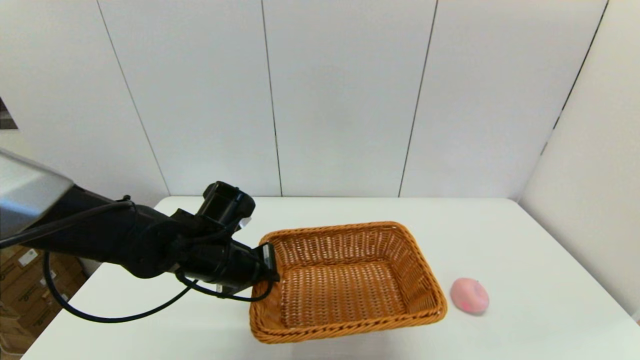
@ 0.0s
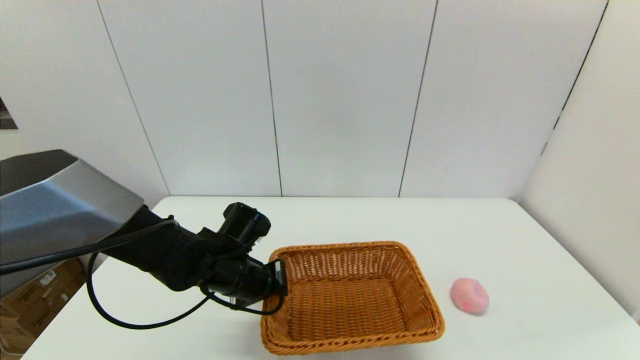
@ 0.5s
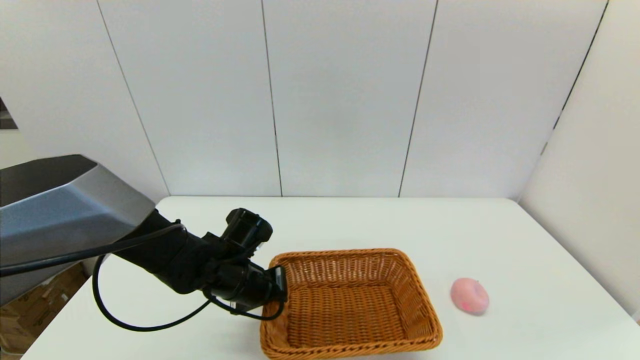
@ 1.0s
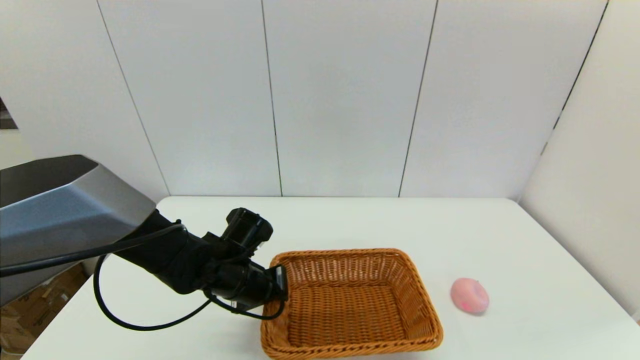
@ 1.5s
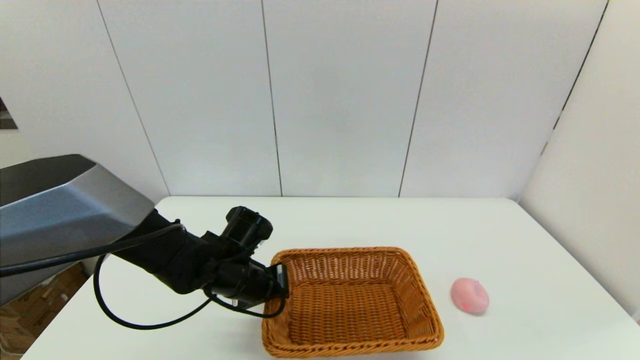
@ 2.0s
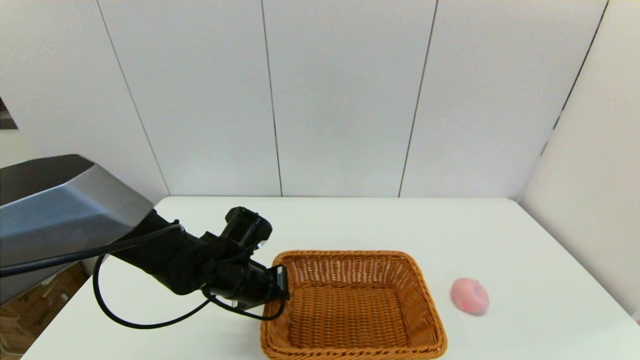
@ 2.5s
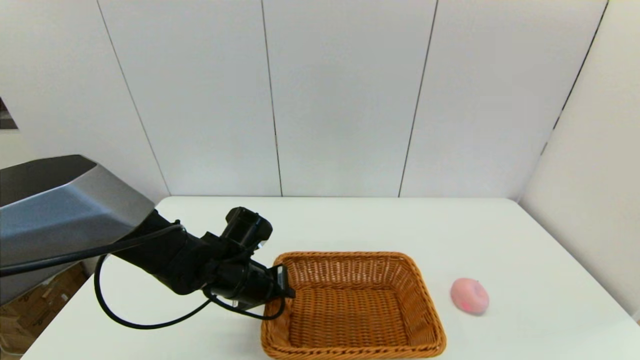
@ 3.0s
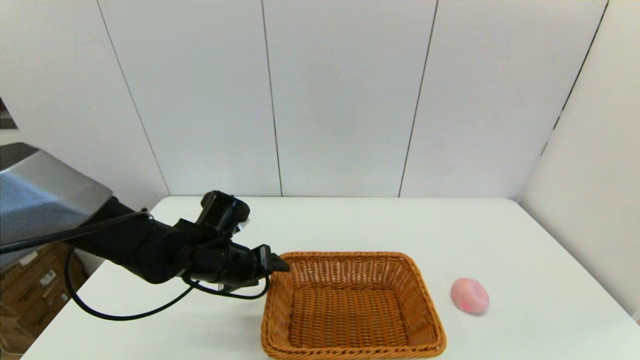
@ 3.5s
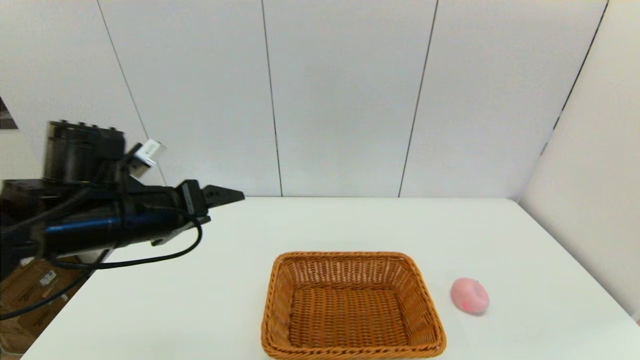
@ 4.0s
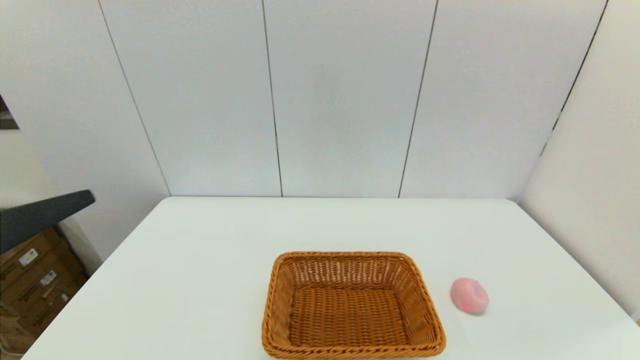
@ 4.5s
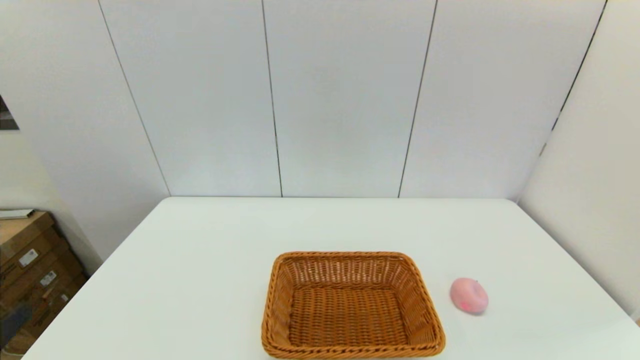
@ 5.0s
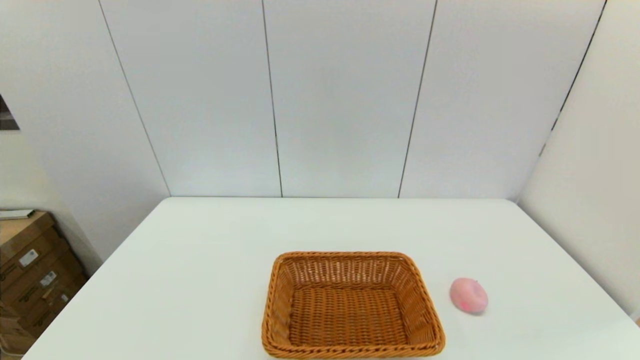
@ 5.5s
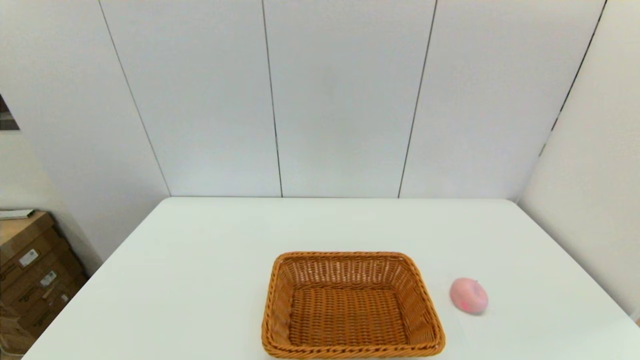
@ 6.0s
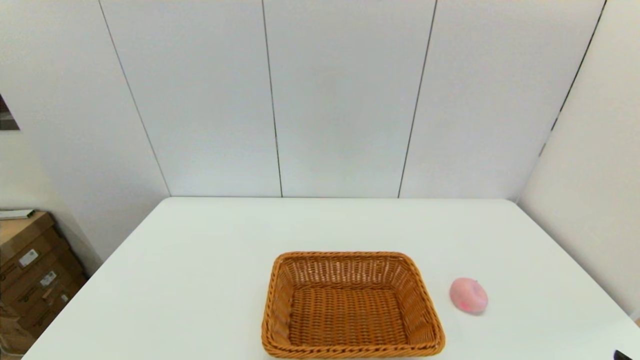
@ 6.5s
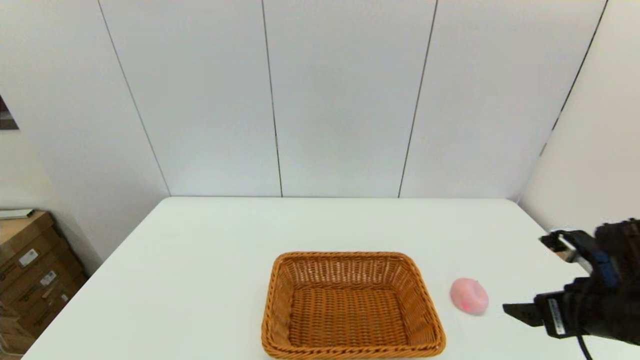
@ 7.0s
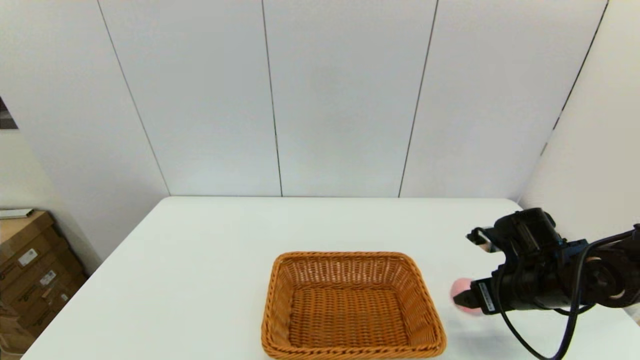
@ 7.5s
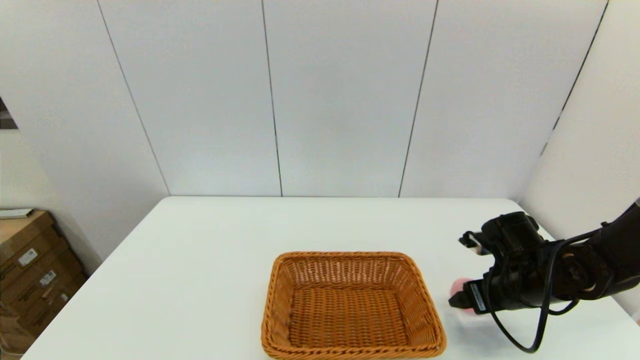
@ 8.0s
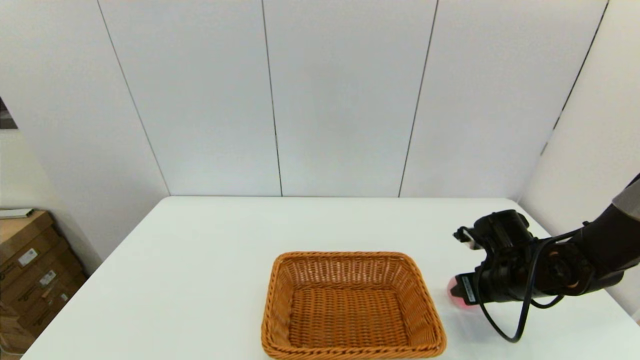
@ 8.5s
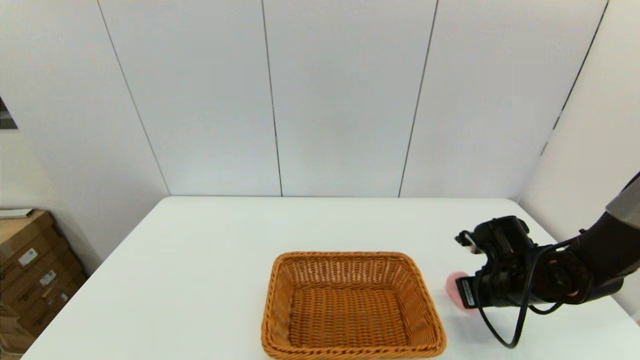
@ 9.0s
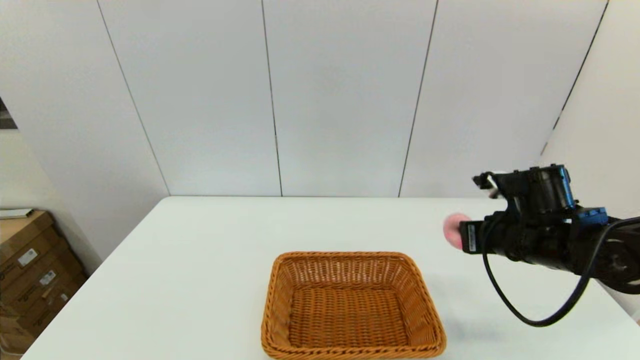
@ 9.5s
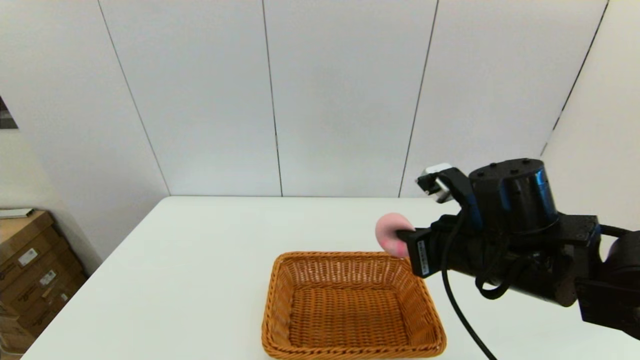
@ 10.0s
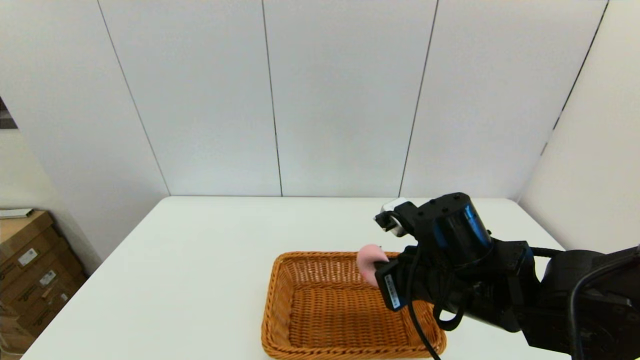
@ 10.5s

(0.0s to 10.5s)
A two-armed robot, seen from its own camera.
Step, 0.0s - 3.0s: Place the light basket on the middle of the table with the left gripper.
Step, 3.5s - 8.5s: Grasp the peach with the right gripper.
0.0s - 2.0s: The left gripper moves downward, about 5 cm.
2.0s - 4.0s: The left gripper goes approximately 20 cm upward and to the left, and opens.
4.0s - 6.5s: The left gripper moves backward and downward, roughly 30 cm. The right gripper is displaced upward by about 5 cm.
6.5s - 8.5s: The right gripper heads forward, covering some 25 cm, and closes.
8.5s - 10.5s: The right gripper goes approximately 20 cm to the left, upward and backward, and closes.

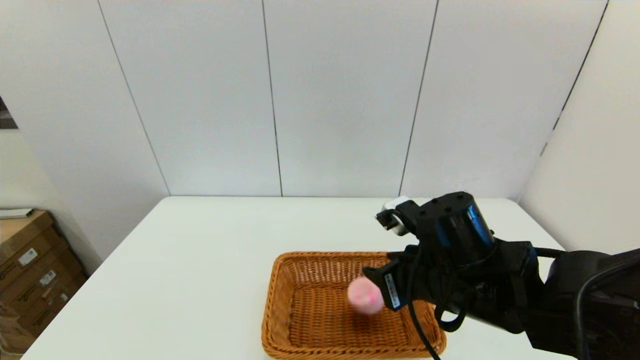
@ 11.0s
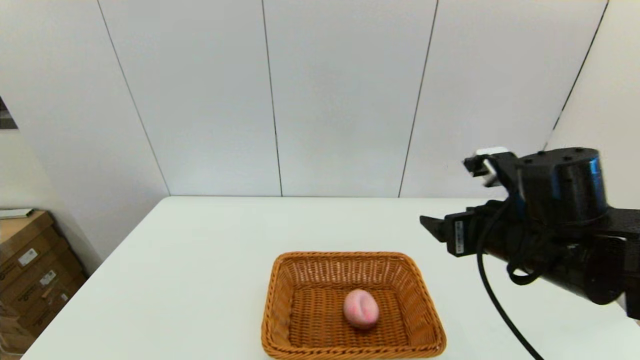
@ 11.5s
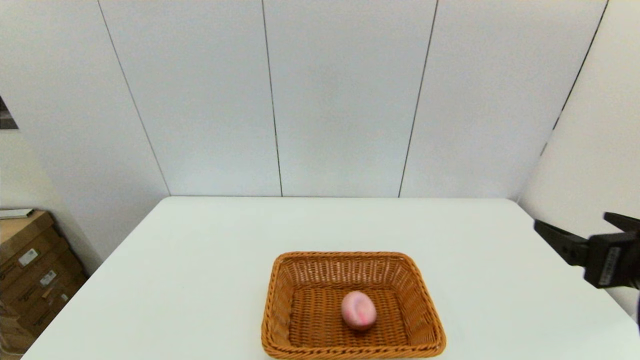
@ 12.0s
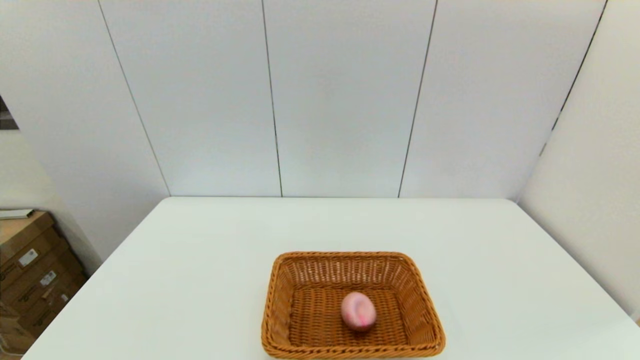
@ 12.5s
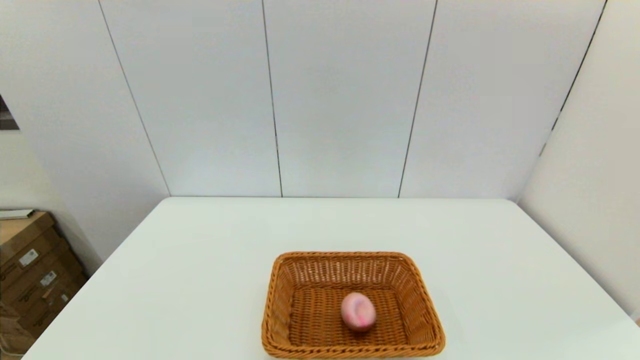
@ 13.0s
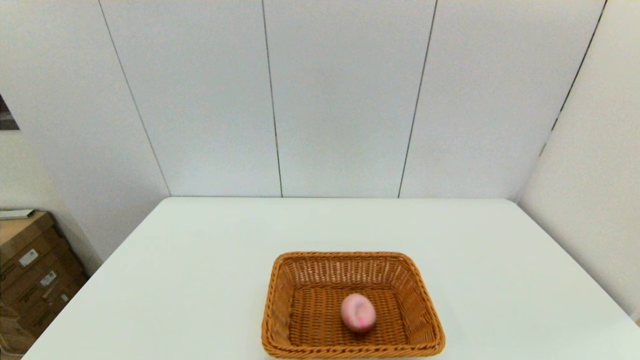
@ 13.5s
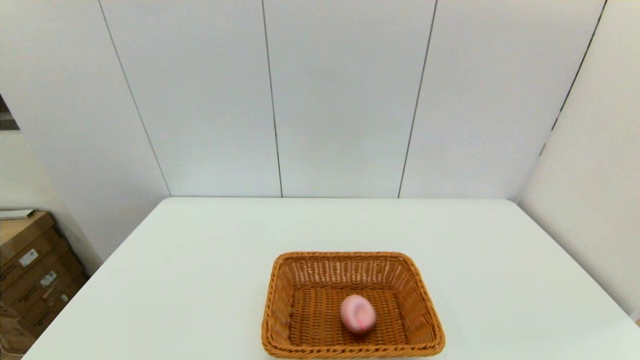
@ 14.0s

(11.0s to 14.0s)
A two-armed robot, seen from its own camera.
11.0s - 12.5s: The right gripper heads backward and to the right, covering approximately 30 cm, and opens its fingers.
